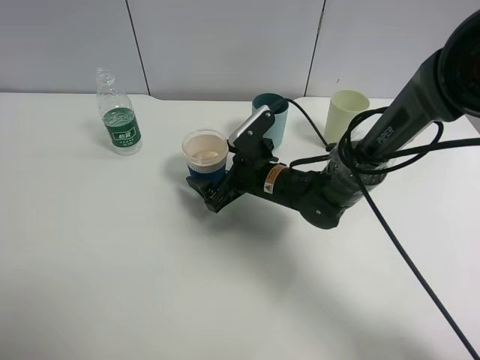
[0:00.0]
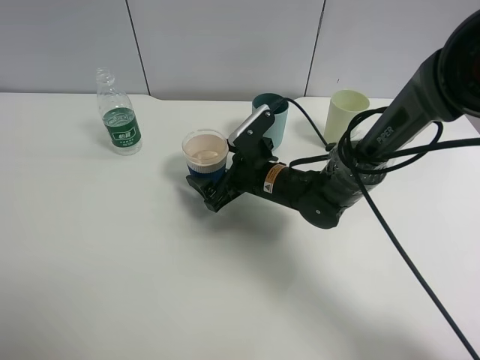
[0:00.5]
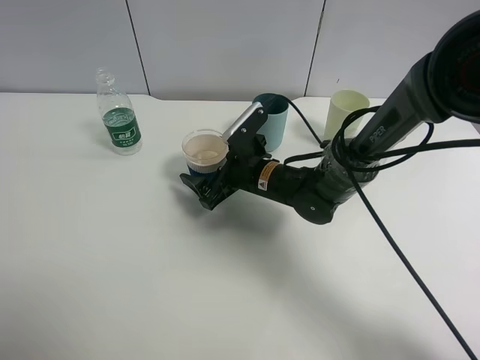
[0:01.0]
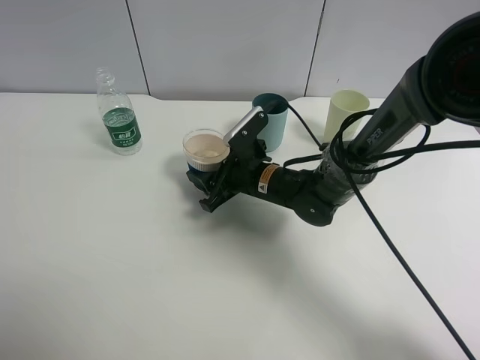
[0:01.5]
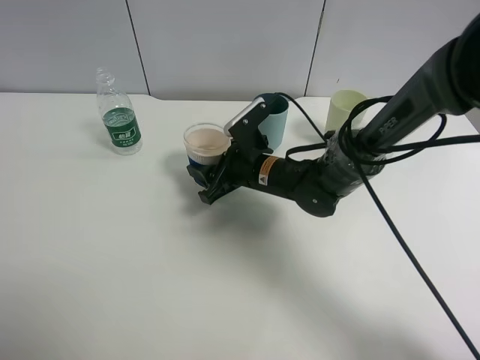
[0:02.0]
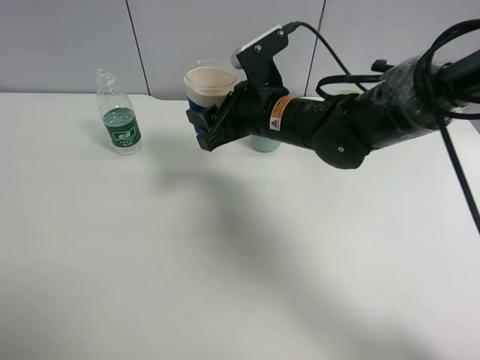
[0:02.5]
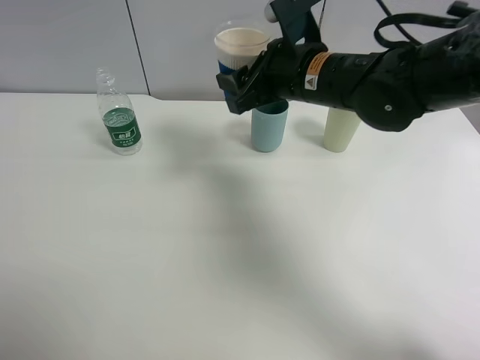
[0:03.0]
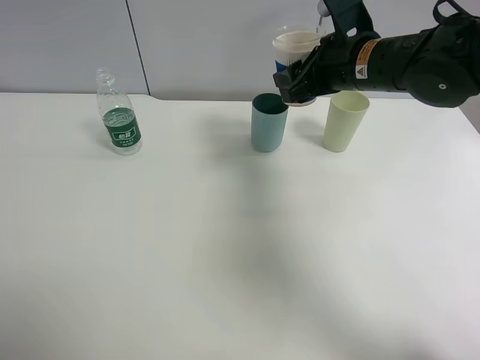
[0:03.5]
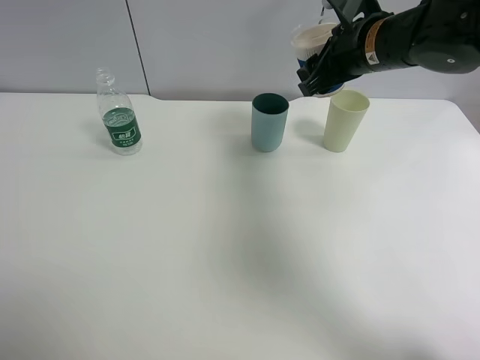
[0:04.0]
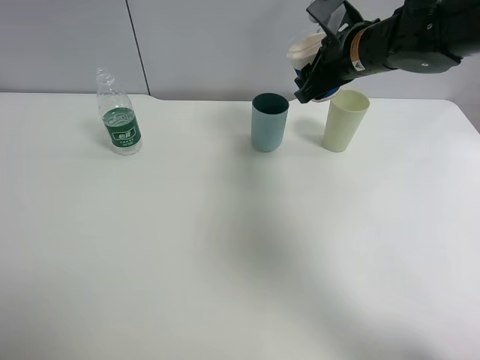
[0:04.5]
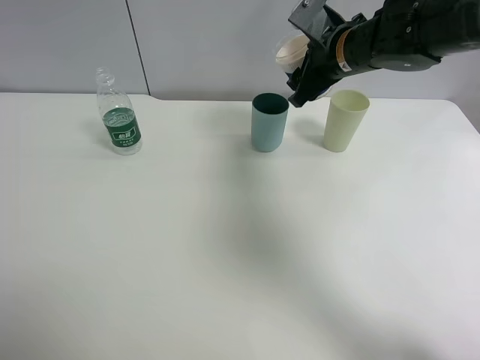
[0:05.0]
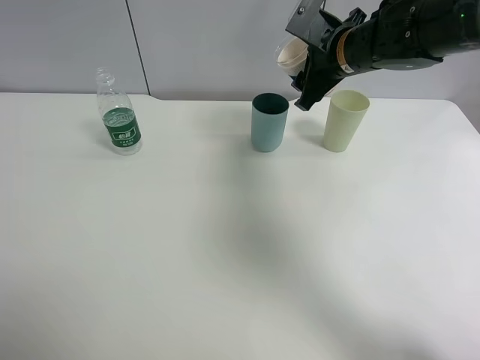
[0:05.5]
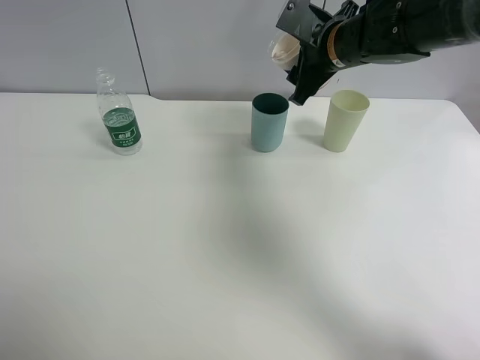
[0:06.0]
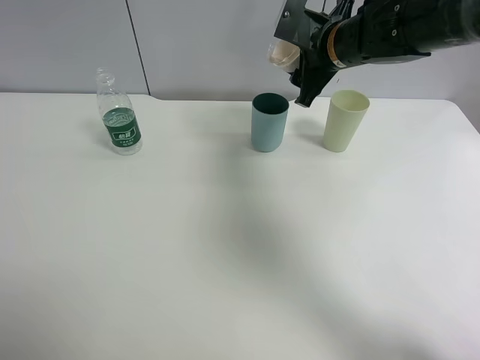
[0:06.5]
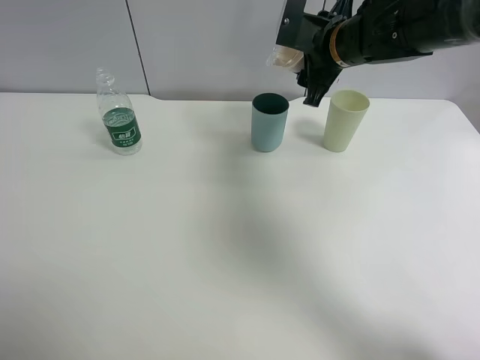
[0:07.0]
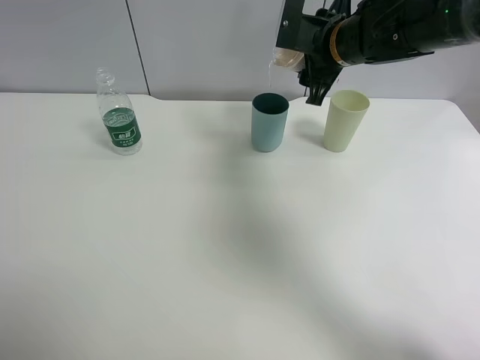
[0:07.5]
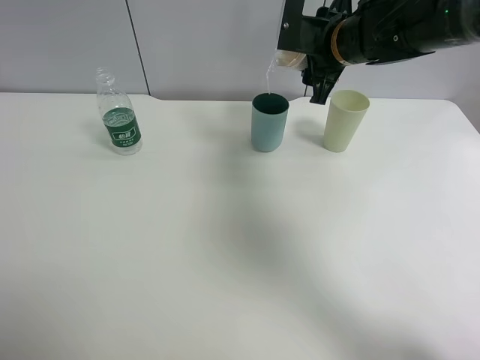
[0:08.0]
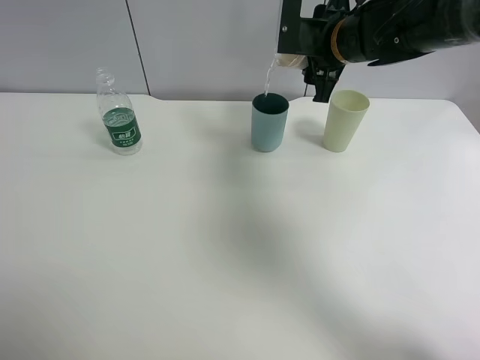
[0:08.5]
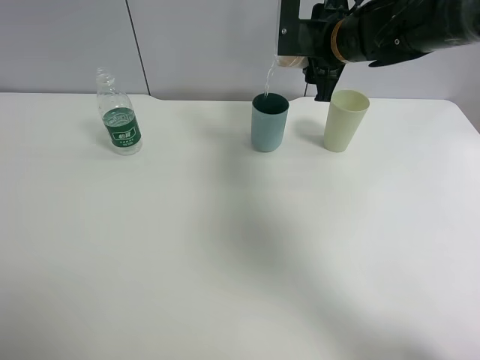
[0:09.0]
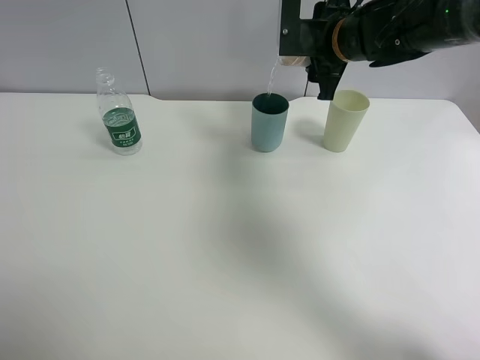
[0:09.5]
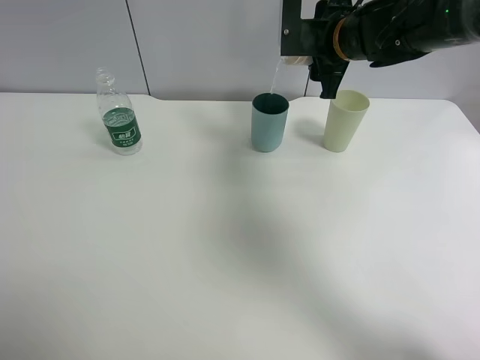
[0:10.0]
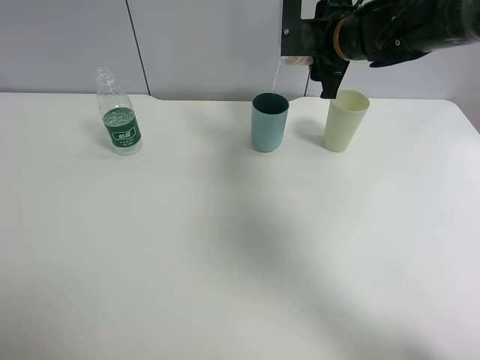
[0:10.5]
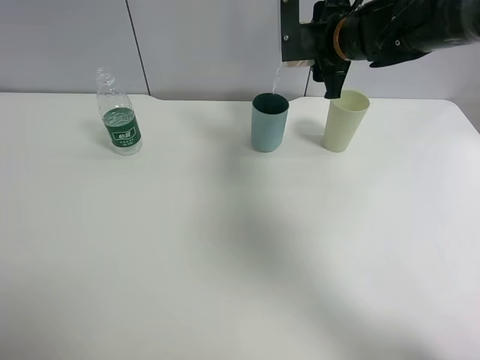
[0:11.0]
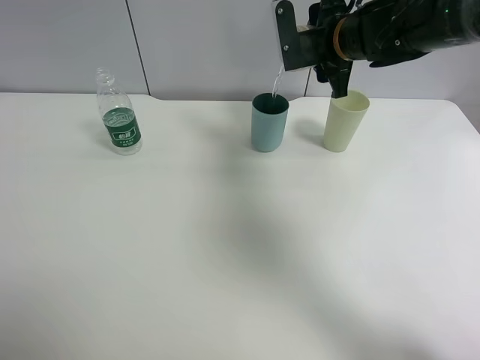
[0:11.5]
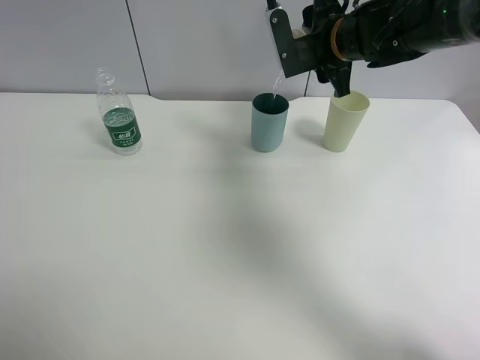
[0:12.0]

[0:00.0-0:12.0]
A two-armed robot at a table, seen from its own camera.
Task of the whole recording: use a clamp to hold the bottle of the drink, pour the beverage into a random cup, then clamp the cup containing the drink and pour the drink into another random cup.
0:00.0 to 0:02.0: The right gripper closes.
0:02.0 to 0:04.0: The right gripper is displaced upward and to the right by about 20 cm.
0:04.0 to 0:06.0: The right gripper moves about 5 cm.
0:08.0 to 0:10.0: The grippers stay close to where they were, moving slightly.

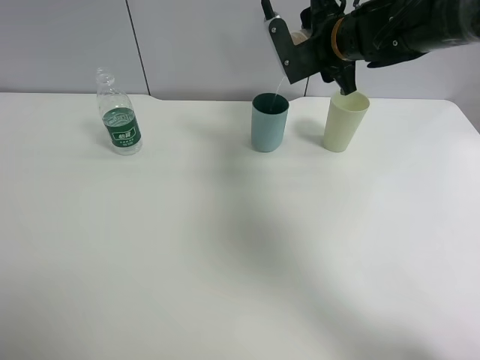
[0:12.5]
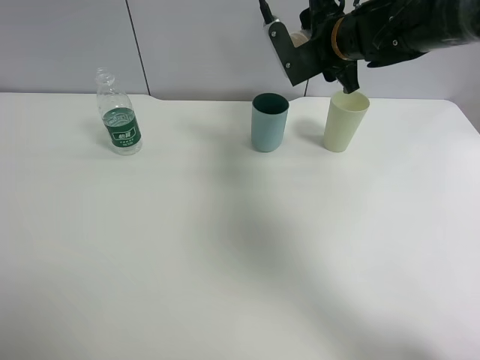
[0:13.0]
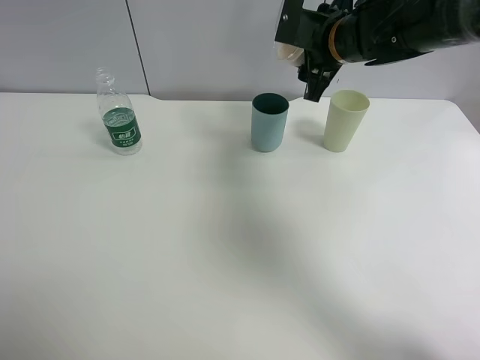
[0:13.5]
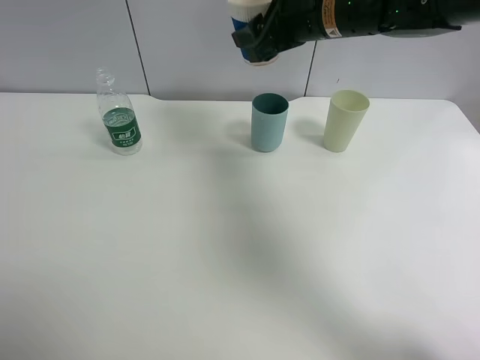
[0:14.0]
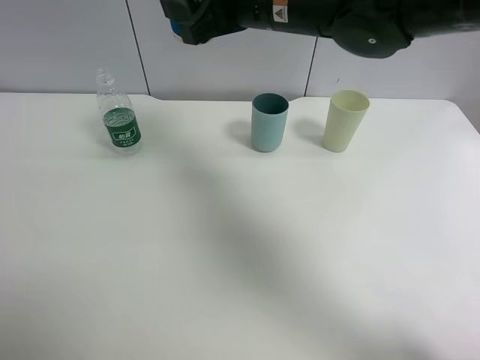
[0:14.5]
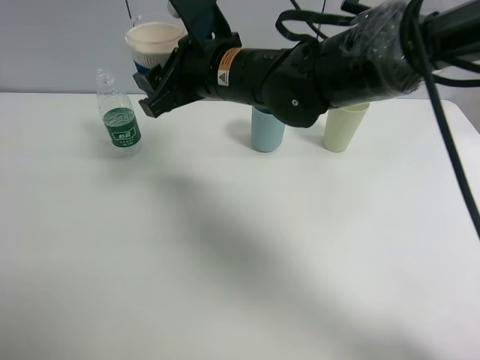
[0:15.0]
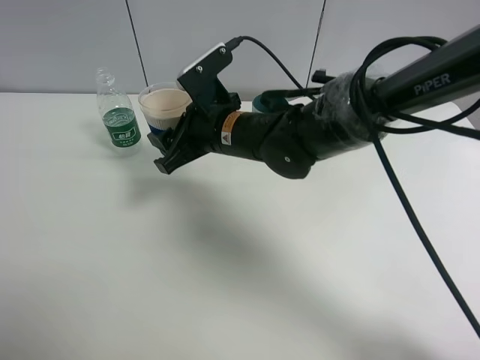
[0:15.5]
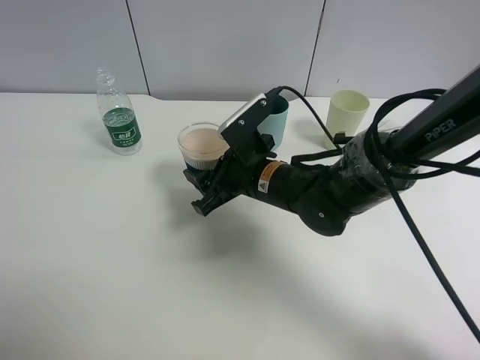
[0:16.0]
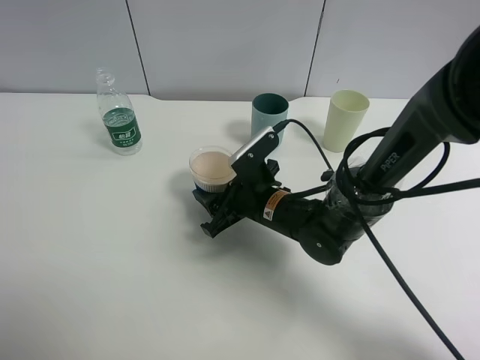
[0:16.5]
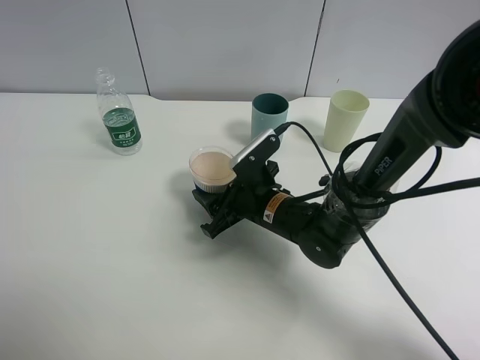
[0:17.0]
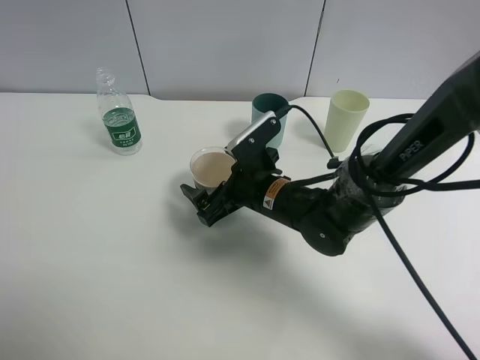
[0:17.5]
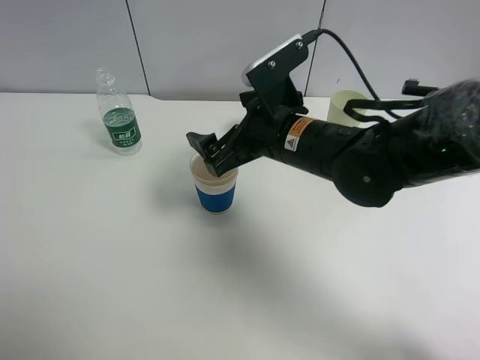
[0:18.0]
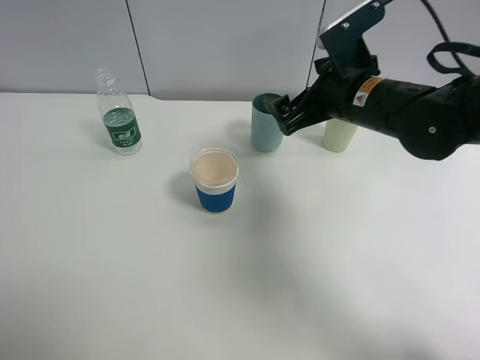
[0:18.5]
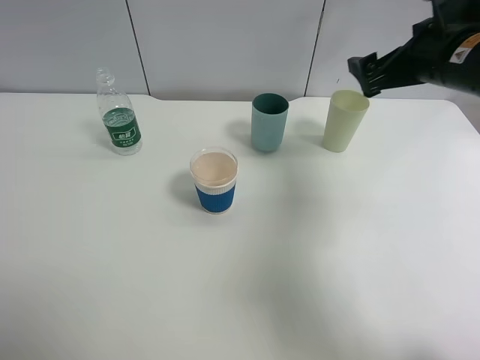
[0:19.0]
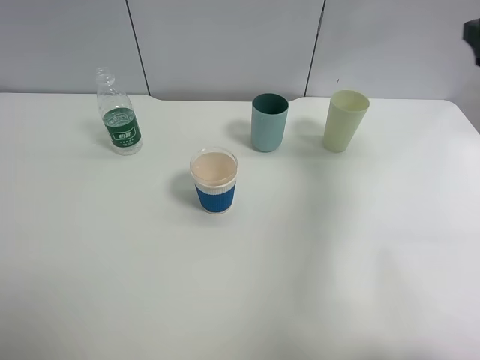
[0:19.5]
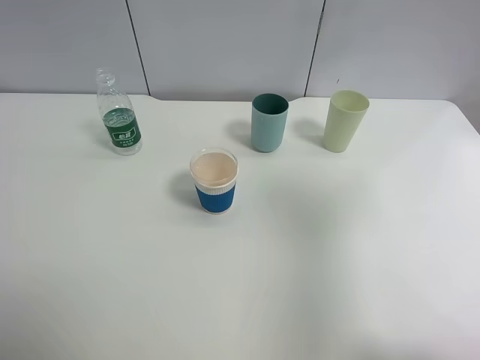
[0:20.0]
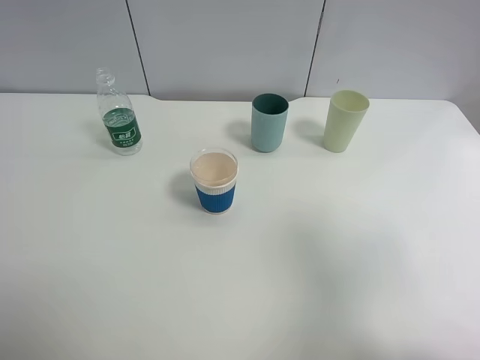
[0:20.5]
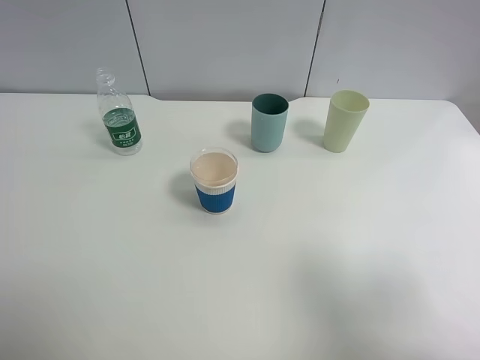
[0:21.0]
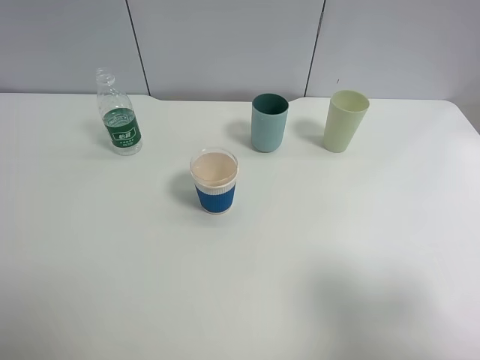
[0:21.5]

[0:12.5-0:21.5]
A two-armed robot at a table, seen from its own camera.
Task of the whole recording: use a clamp to hold the bottle of the drink, pour the beverage into a random cup, then clamp the cup containing the drink and pour the drink into another random cup.
Step, 0:13.5 to 0:17.0: Place the paper cup on the table with right gripper.
0:12.5 to 0:14.5: The right gripper heads to the left, backward and upward, covering roughly 15 cm.
0:14.5 to 0:17.0: The right gripper is displaced downward by approximately 25 cm.
0:17.0 to 0:19.5: The right gripper moves to the right and upward, about 40 cm, and opens.
0:19.5 to 0:21.5: The right gripper shifts roughly 25 cm backward.

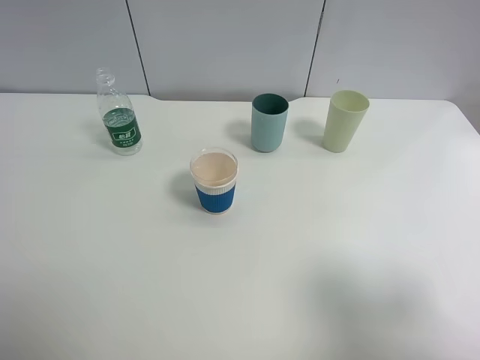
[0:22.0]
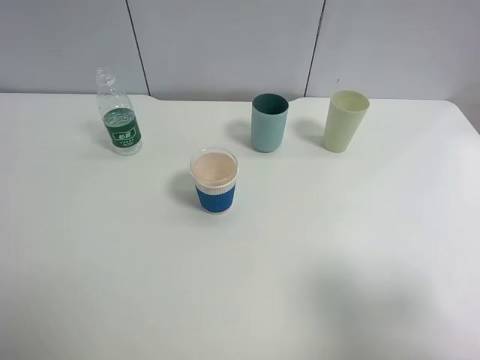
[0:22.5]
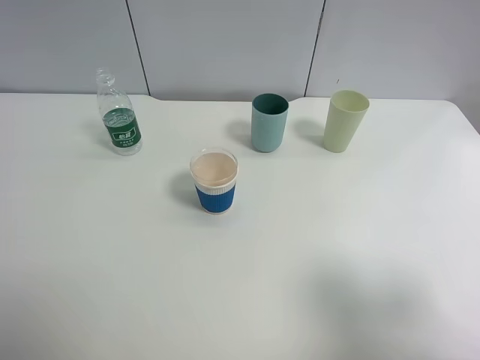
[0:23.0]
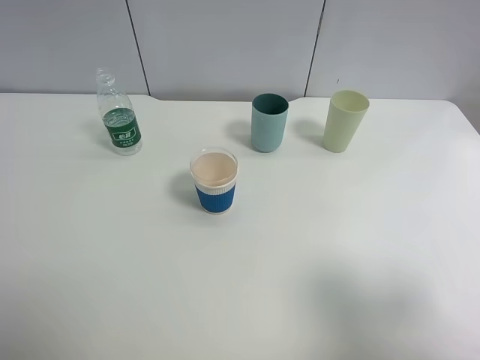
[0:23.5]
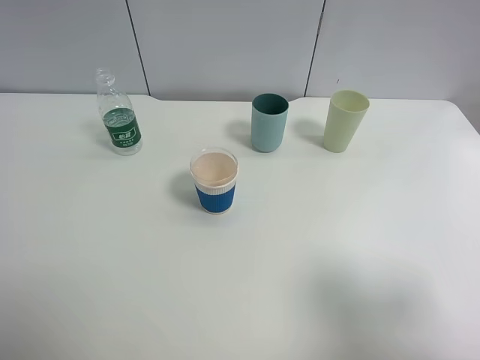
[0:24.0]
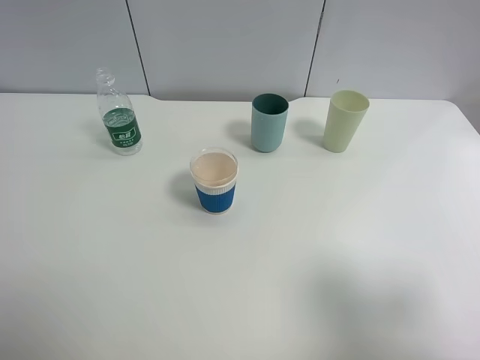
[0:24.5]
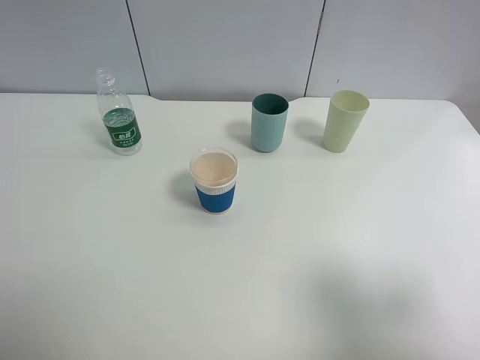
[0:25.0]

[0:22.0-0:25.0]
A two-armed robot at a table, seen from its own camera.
Task of the whole recording: use a clamp to hold the bottle of the drink, pour the beverage into a random cup, then clamp the cup containing the drink and pour the drink into another random cup.
0:22.0 to 0:25.0: The two grippers keep their place.

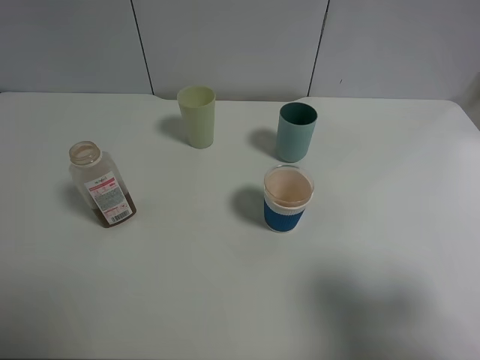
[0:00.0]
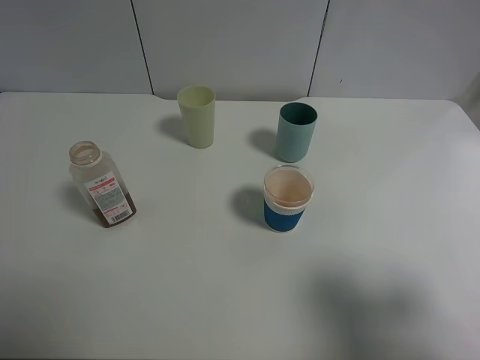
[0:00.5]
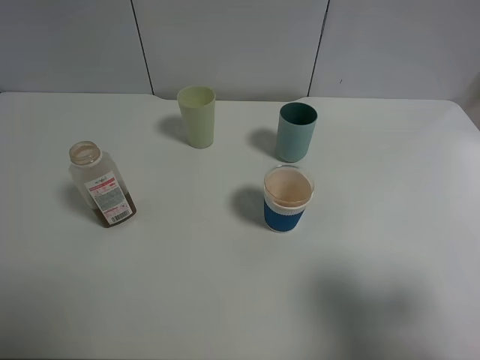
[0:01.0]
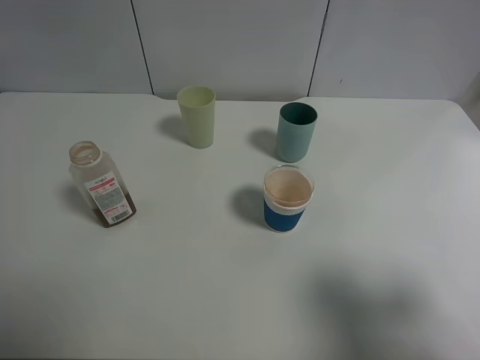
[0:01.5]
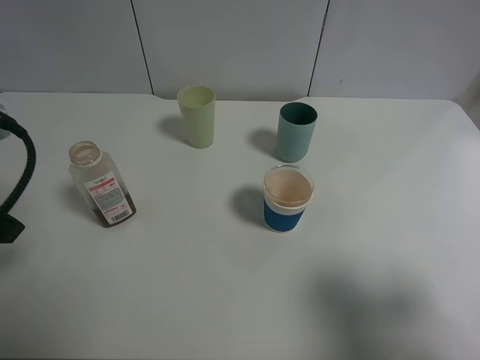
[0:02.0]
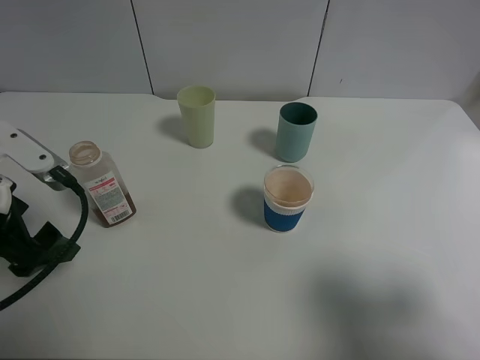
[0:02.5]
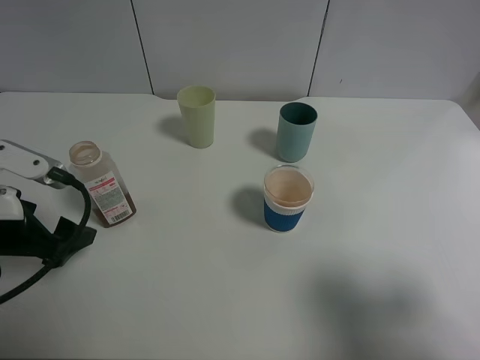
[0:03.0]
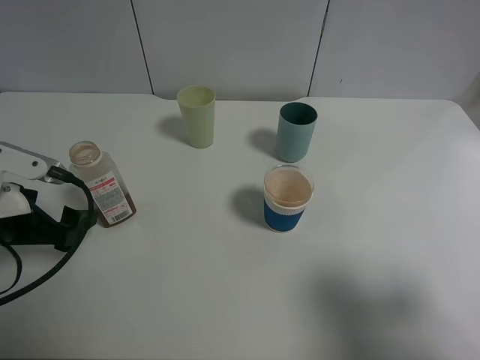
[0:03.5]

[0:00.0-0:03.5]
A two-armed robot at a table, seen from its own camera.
Task of the whole recording: use a clamp to hold the bottle of the drink, pour the beverage into a random cup, then clamp the cup containing the drink and pour the drink into another random cup.
0:00.0 to 0:02.0: The left gripper is displaced forward by roughly 15 cm.
0:02.0 to 0:03.5: The left gripper shifts approximately 15 cm downward.
